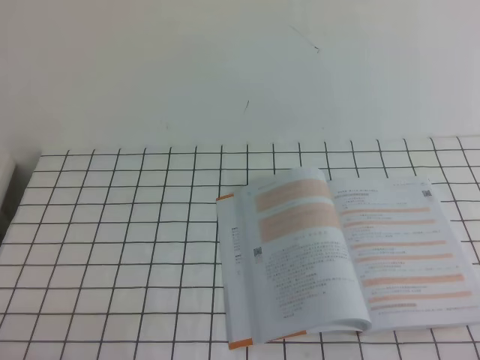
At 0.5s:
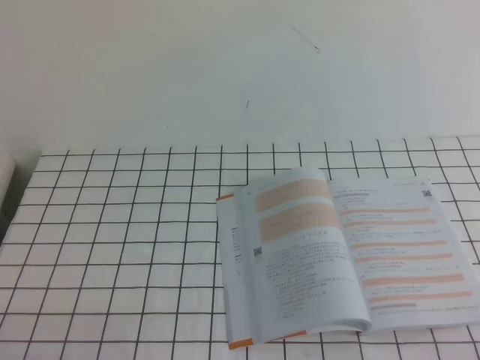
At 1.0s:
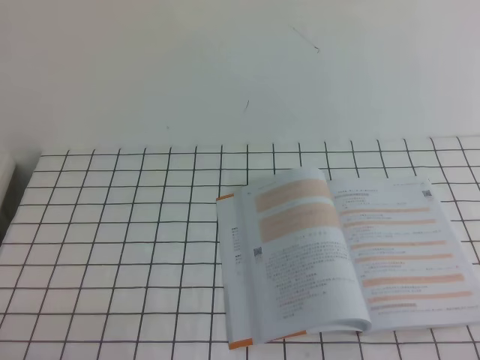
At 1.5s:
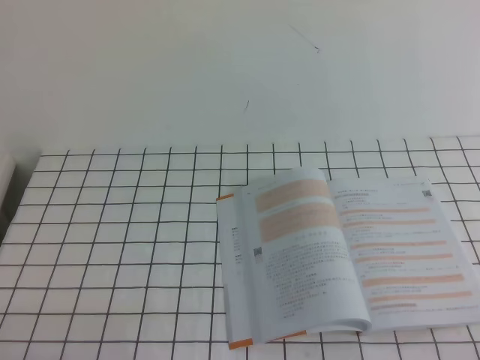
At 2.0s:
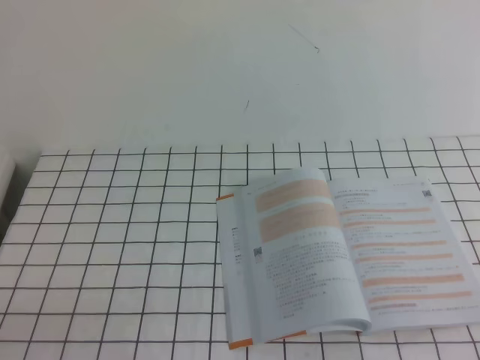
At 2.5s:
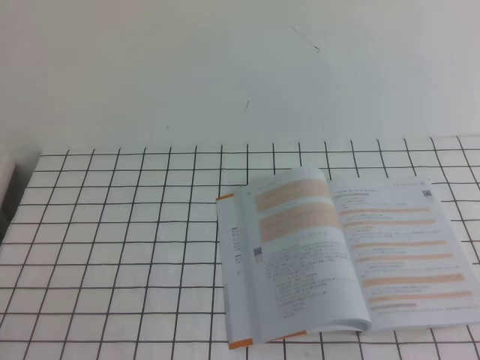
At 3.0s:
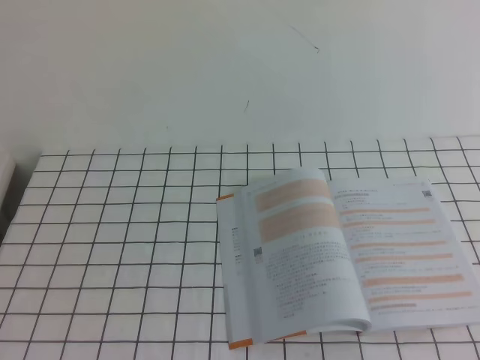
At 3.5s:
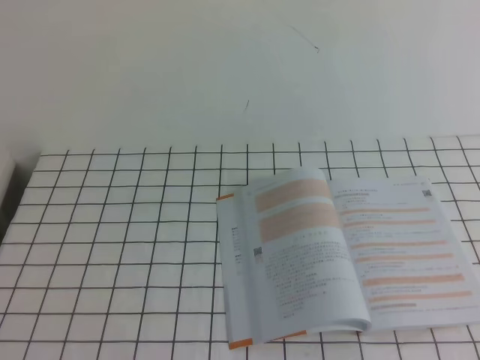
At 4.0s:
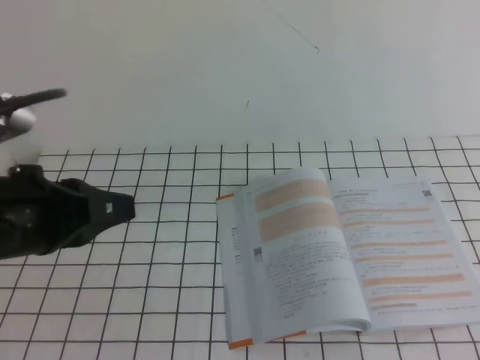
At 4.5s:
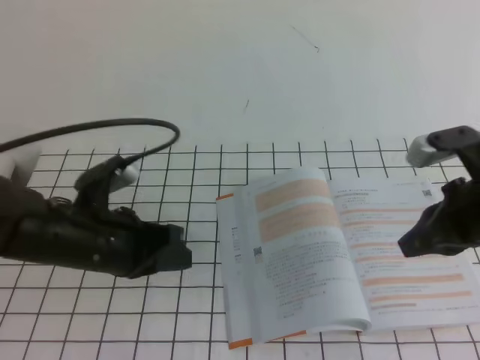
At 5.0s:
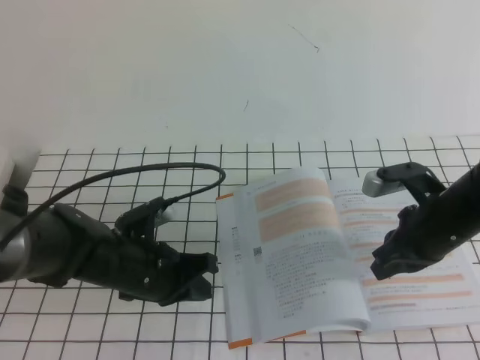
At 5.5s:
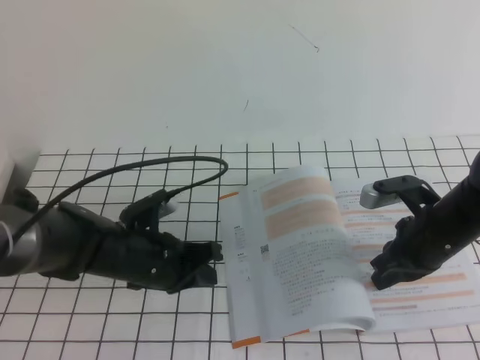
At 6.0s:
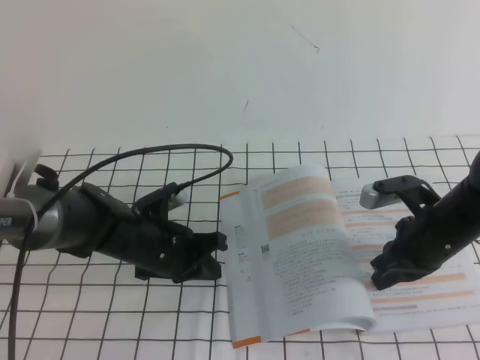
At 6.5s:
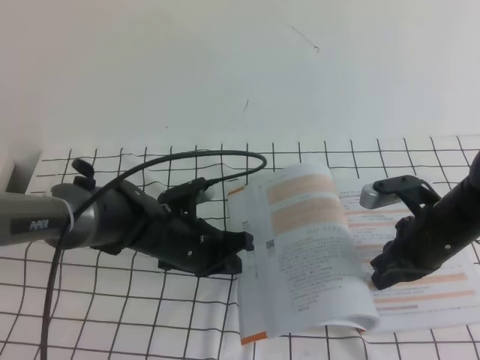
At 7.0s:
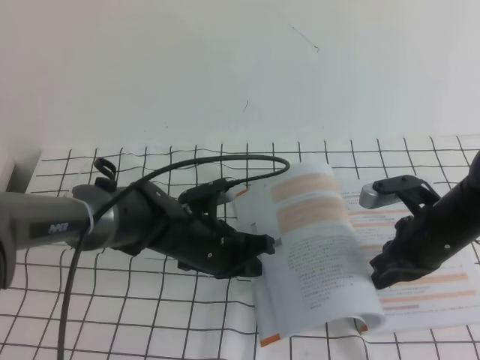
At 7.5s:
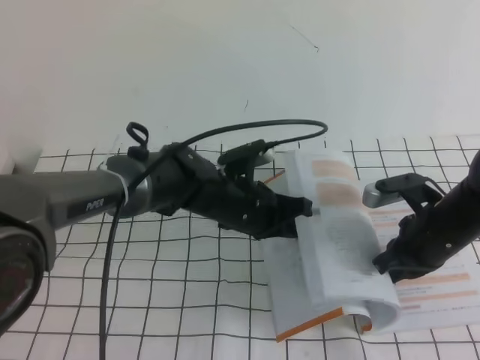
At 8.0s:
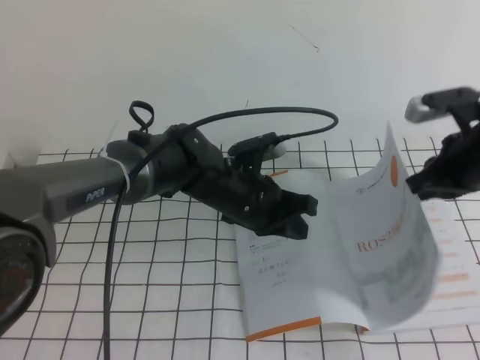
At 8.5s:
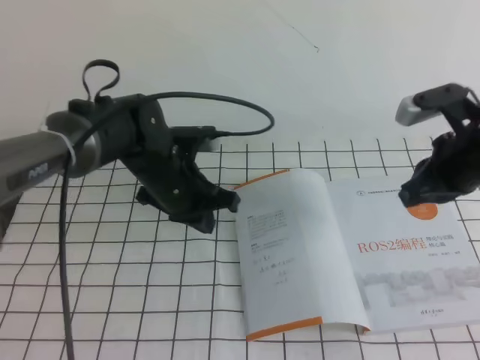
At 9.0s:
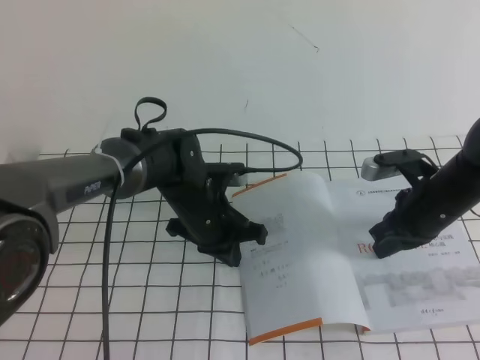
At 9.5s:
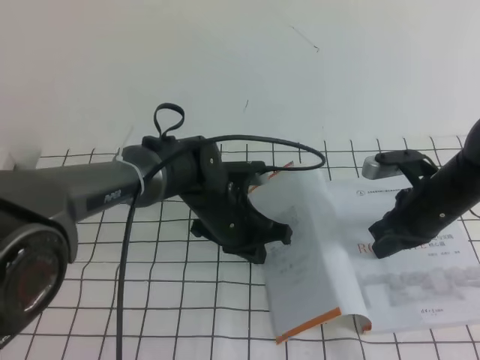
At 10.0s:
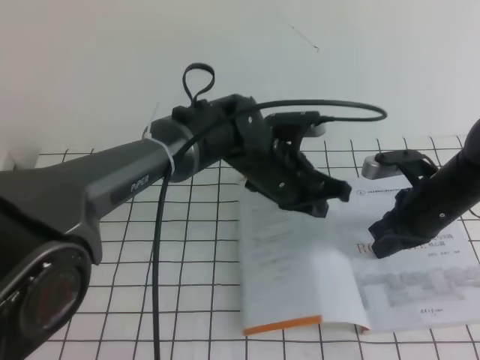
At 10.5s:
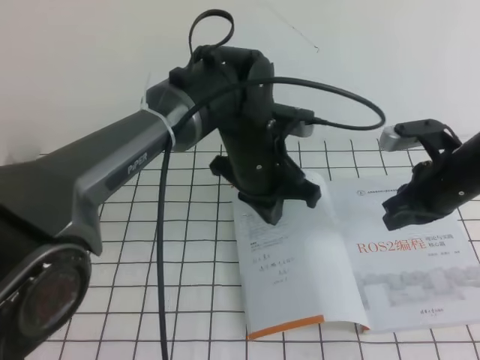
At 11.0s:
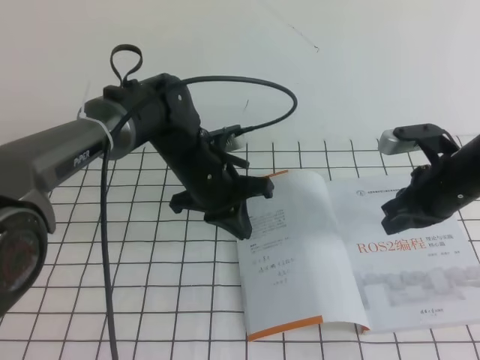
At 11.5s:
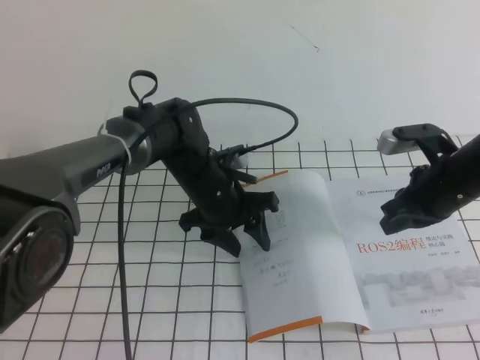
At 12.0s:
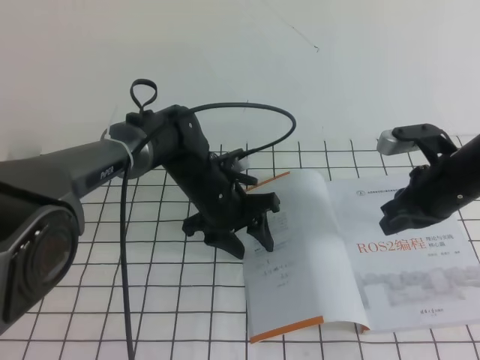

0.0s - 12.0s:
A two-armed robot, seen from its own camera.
Task of the whole recording: on the white tablecloth, hold the book with one hand and close it with the other.
2.0s - 4.0s: The left gripper travels forward, upward and to the right by approximately 20 cm.
4.0s - 6.0s: The left gripper goes approximately 25 cm downward, forward and to the right; the right gripper moves downward and forward, some 25 cm.
6.0s - 8.0s: The right gripper goes roughly 10 cm upward. The left gripper moves to the right and upward, some 10 cm.
8.0s - 10.0s: The right gripper heads downward, covering about 10 cm.
10.0s - 12.0s: The left gripper heads to the left and downward, covering roughly 10 cm, and opens its fingers.

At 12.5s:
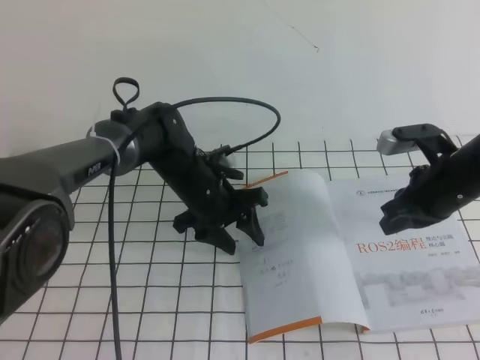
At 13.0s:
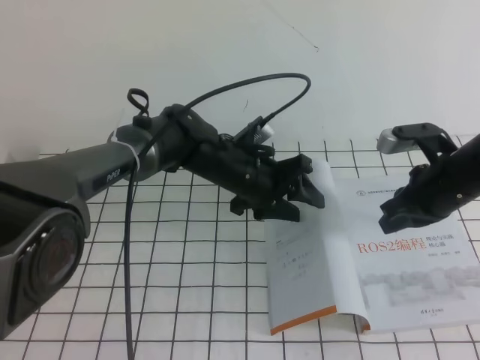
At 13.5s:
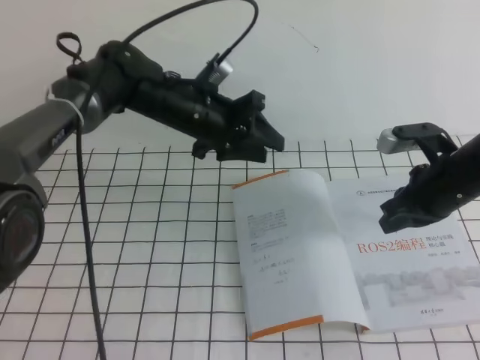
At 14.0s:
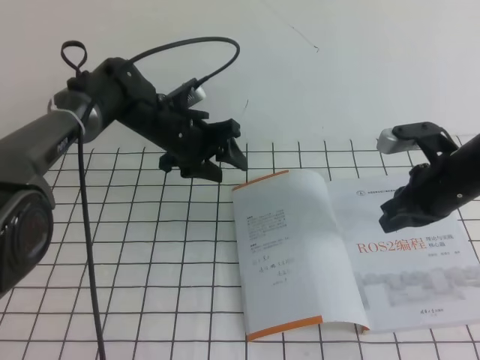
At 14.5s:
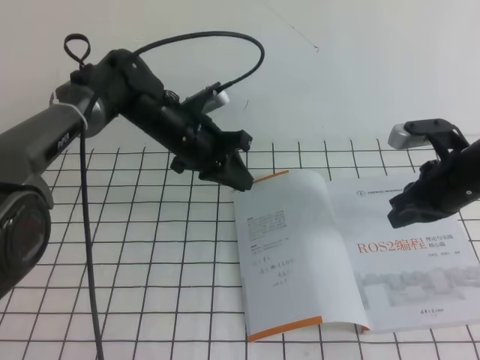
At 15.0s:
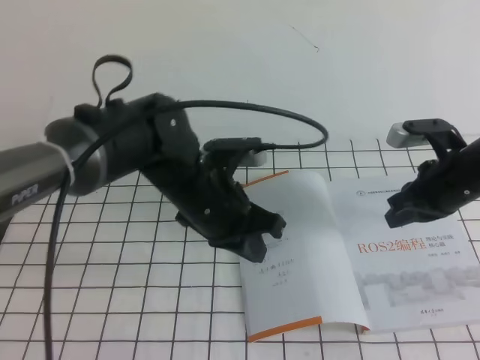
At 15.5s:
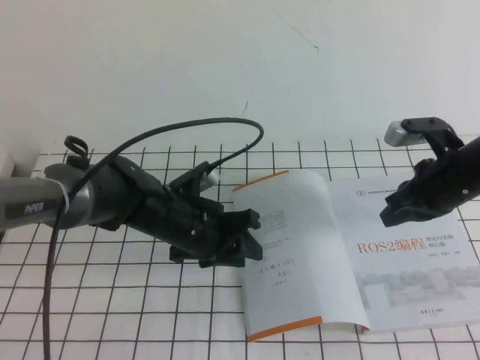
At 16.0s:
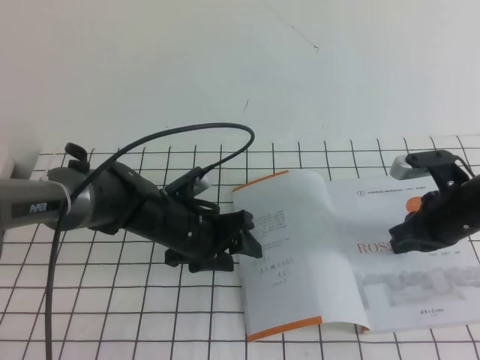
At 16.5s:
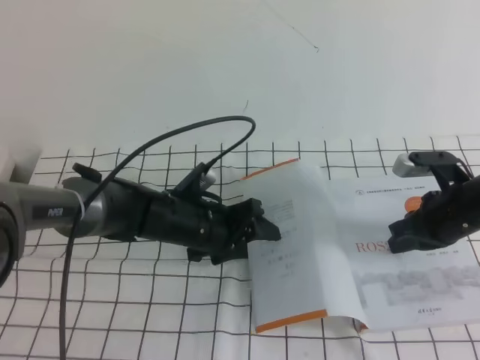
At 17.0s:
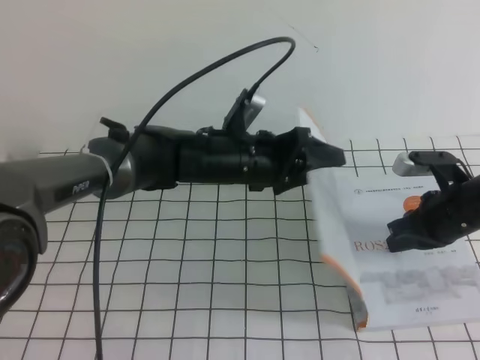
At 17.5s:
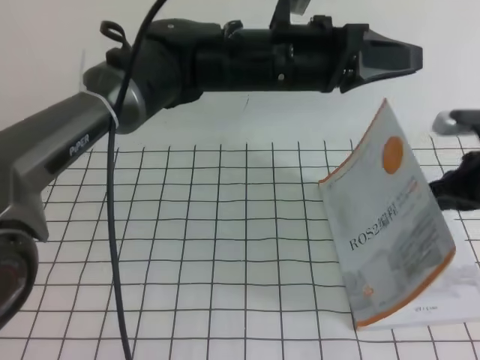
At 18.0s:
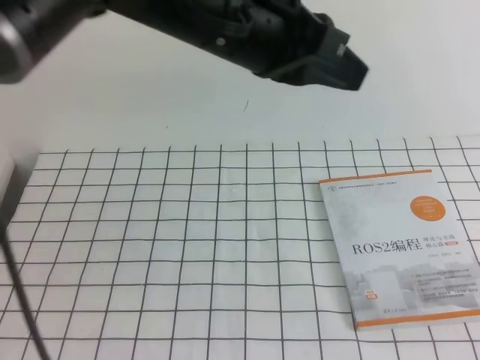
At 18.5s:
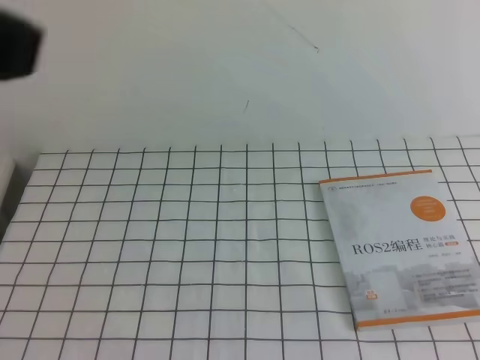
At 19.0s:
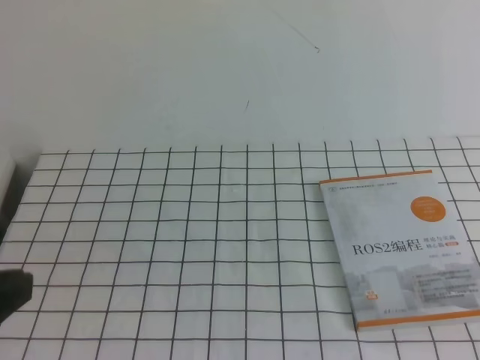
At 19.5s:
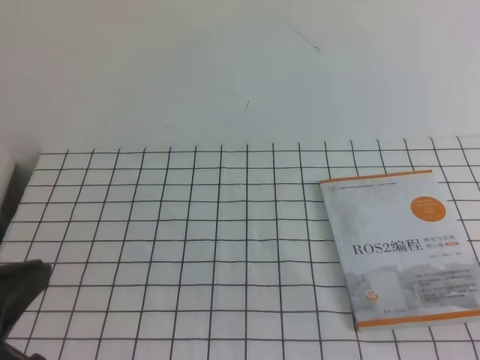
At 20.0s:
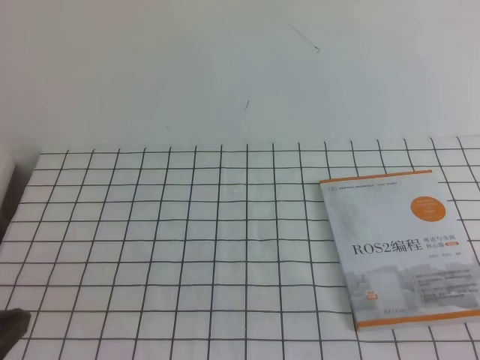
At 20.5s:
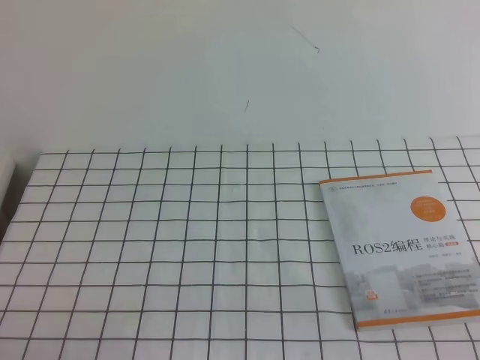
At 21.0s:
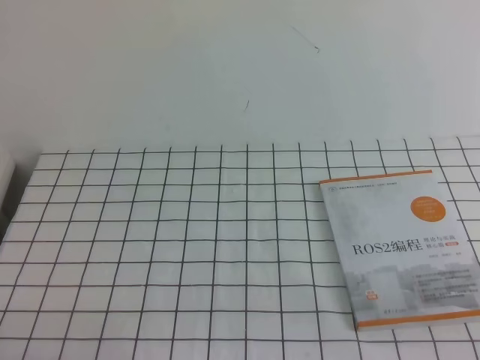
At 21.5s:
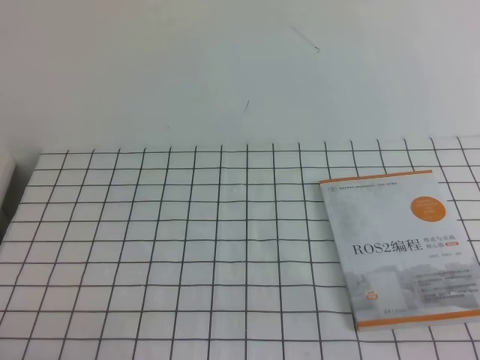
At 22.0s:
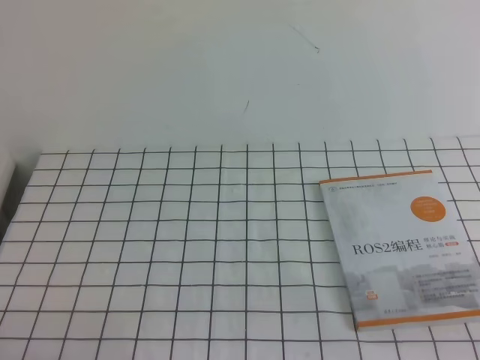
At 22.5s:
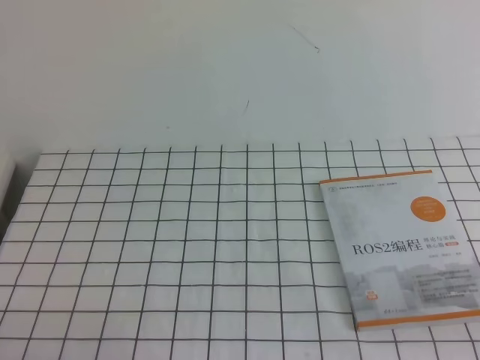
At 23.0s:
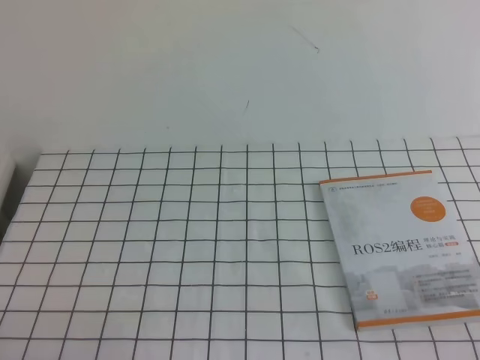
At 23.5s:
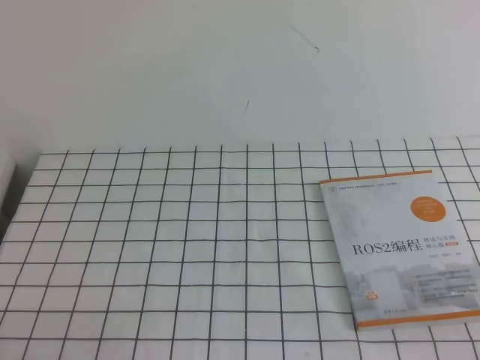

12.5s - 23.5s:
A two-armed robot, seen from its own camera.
Task of the whole recording: on the white tablecloth, hold the book with one hand and close it with the other.
Step, 12.5s - 23.5s: Close the open book.
12.5s - 14.5s: The left gripper goes about 5 cm upward, travels to the left and back again, roughly 5 cm each way, and closes.
14.5s - 16.0s: The left gripper travels backward and downward by approximately 10 cm, and opens up.
16.0s - 18.0s: The grippers both shift upward by approximately 25 cm. The left gripper closes its fingers.
18.0s - 20.0s: The left gripper heads backward, to the left and downward, covering some 35 cm, while the right gripper goes about 25 cm backward and downward.
